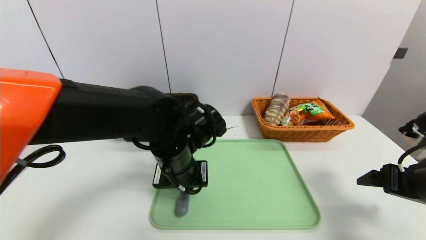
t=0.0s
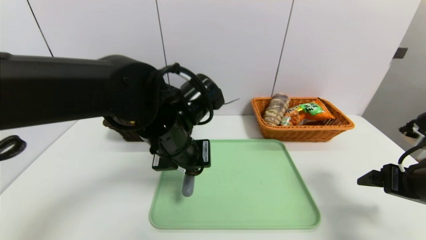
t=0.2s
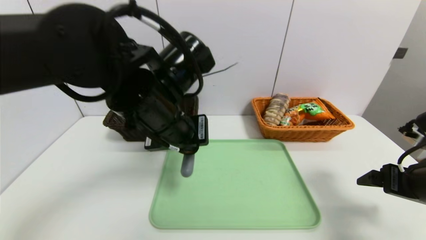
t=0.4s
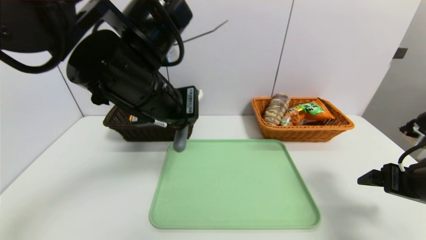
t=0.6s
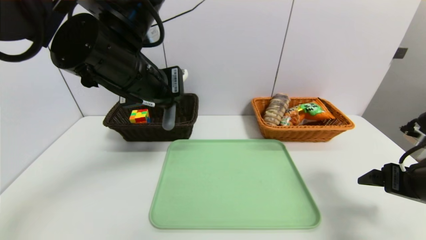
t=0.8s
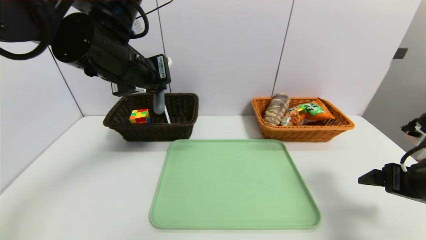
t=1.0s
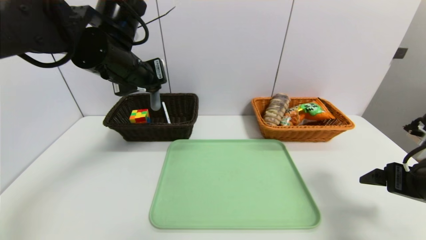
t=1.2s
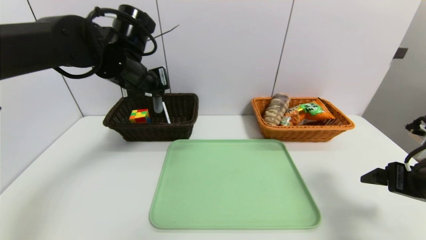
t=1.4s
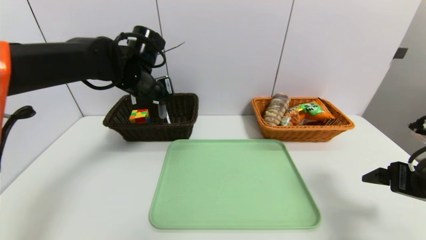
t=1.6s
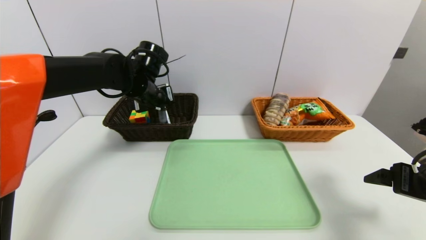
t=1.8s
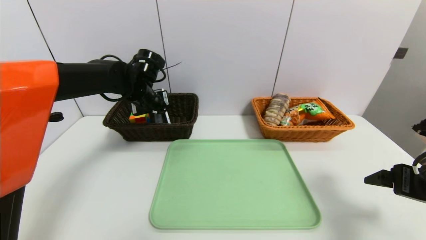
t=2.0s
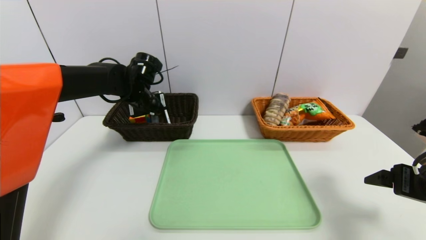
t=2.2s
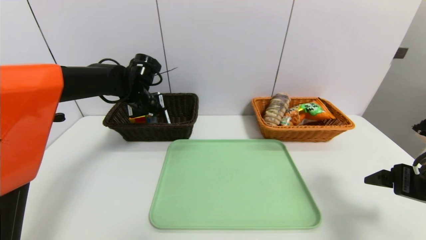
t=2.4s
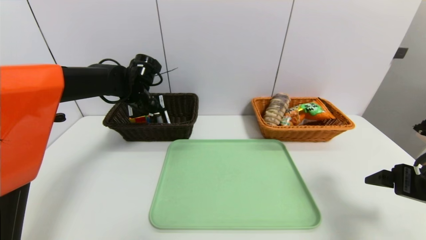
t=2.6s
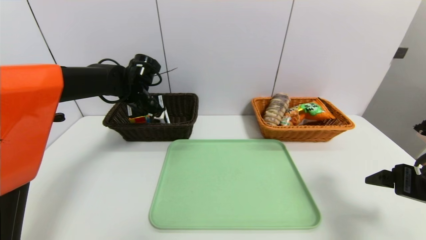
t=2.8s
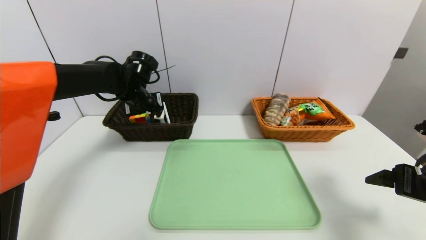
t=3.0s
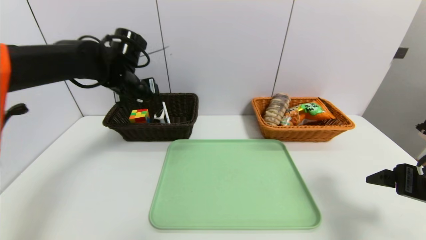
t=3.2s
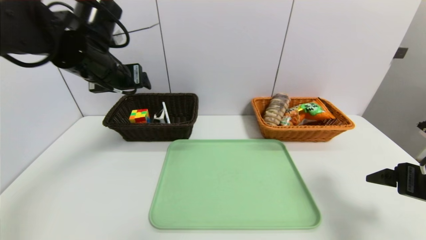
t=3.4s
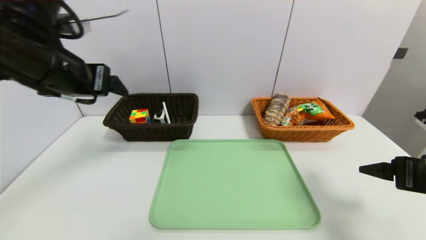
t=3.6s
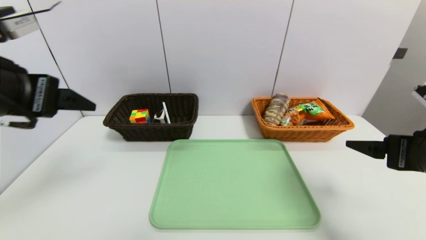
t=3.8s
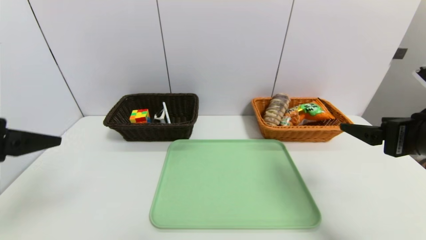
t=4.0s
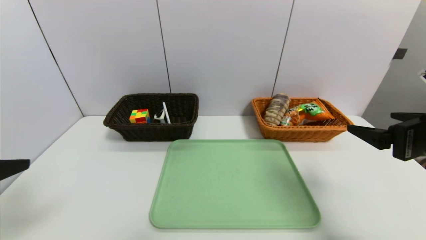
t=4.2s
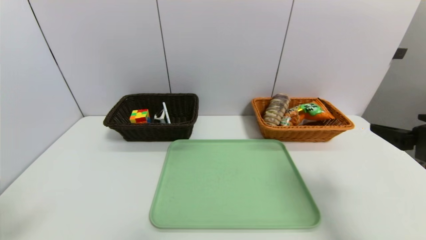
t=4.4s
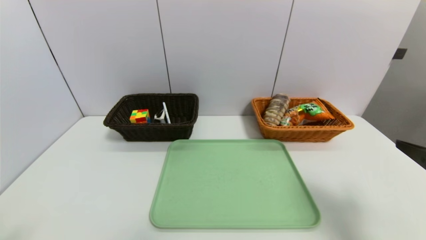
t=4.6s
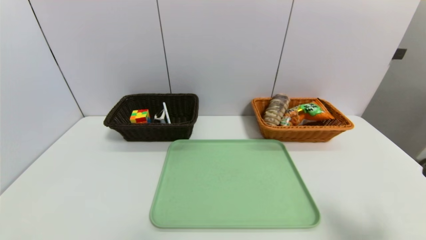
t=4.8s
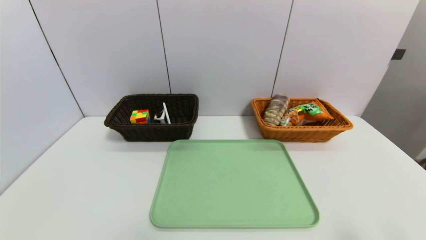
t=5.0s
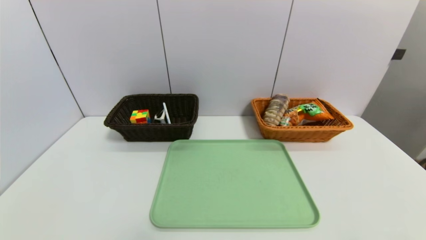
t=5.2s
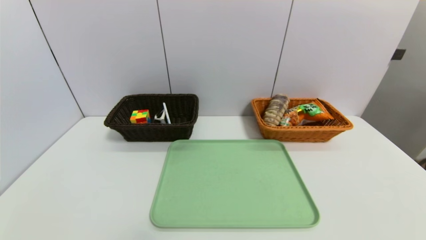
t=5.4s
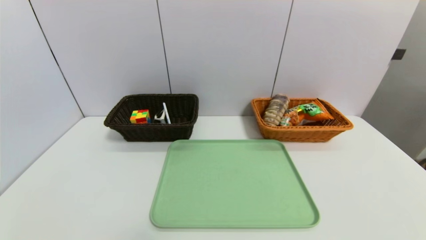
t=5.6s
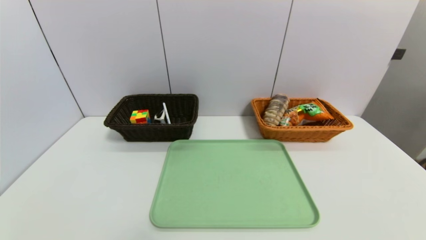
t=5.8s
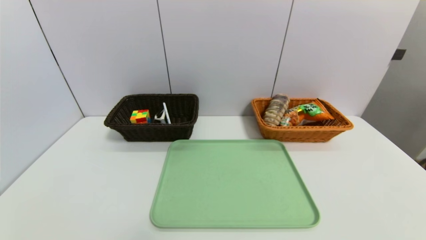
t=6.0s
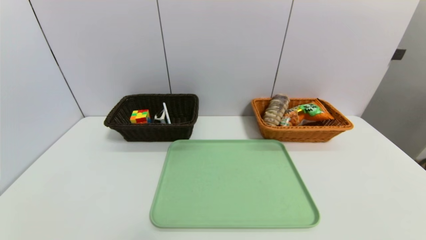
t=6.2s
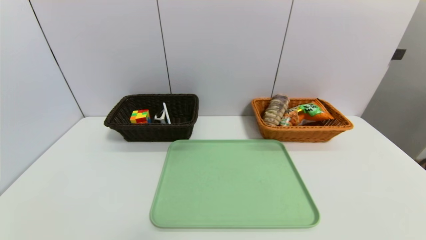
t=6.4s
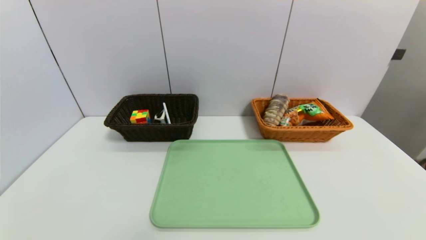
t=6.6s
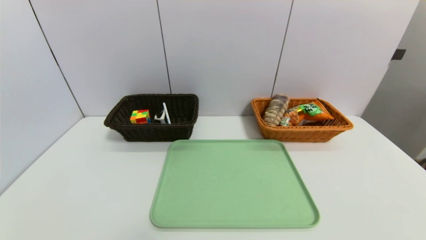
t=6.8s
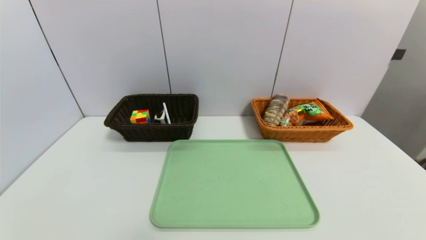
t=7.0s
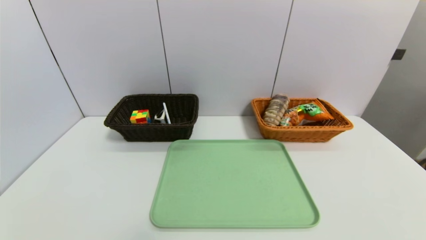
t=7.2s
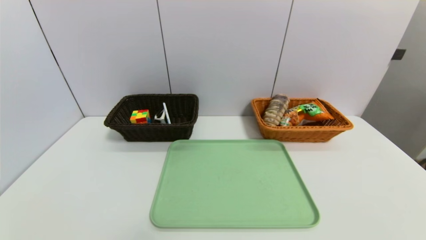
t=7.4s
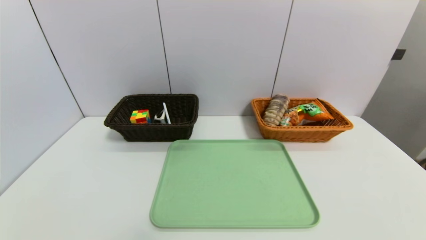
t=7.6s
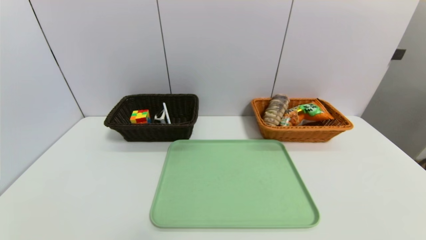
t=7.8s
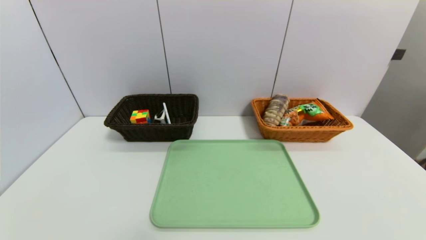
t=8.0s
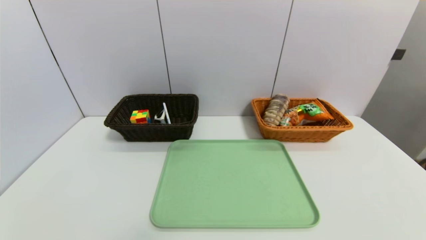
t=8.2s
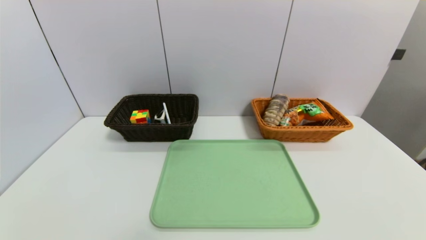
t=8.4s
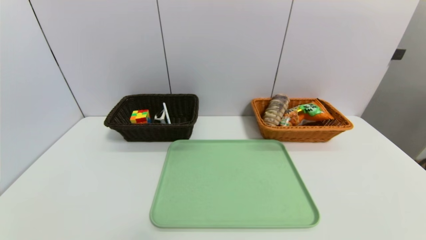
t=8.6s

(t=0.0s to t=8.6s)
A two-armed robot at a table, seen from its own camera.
Task of the whole recording: place the food in the right basket with the right gripper, and place the non food items in the left basket with the left gripper.
Step, t=0.0s - t=3.0s: Grasp the peeler and put it in the left basket.
t=0.0s - t=1.4s: The left gripper is displaced upward, to the left and forward by approximately 20 cm.
t=1.4s - t=2.8s: The left gripper goes roughly 10 cm downward and forward, and opens.
t=2.8s - t=4.4s: The right gripper heads upward, covering some 5 cm. Meanwhile the left gripper moves backward, roughly 40 cm, and opens up.
t=4.4s - t=5.8s: The right gripper shifts roughly 25 cm downward and backward, while the left gripper goes roughly 20 cm downward.
